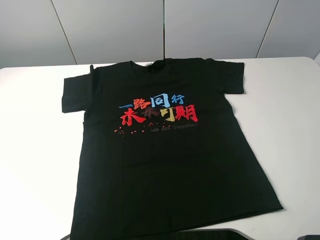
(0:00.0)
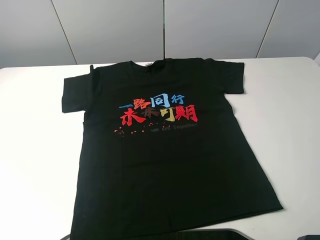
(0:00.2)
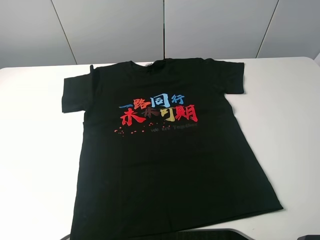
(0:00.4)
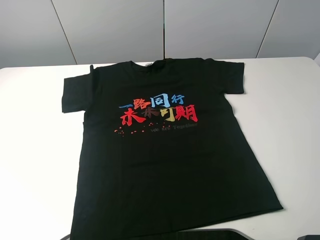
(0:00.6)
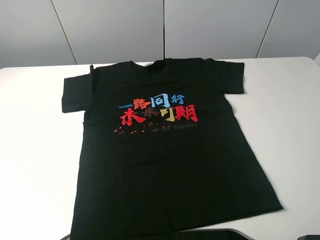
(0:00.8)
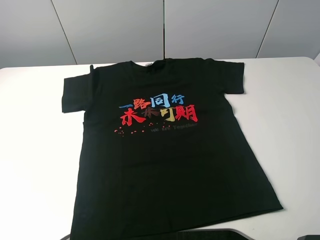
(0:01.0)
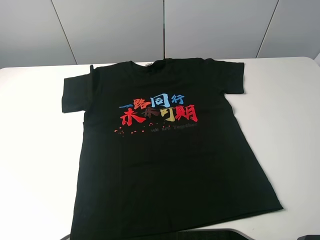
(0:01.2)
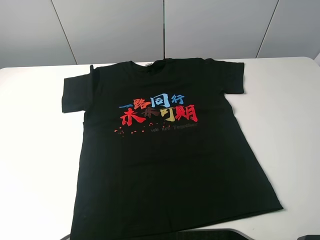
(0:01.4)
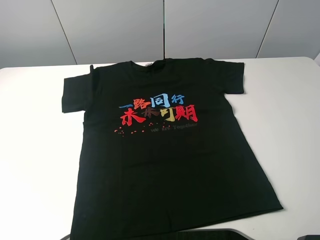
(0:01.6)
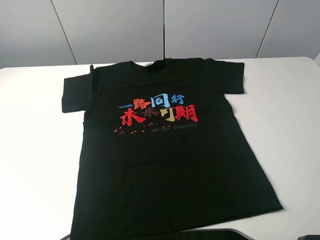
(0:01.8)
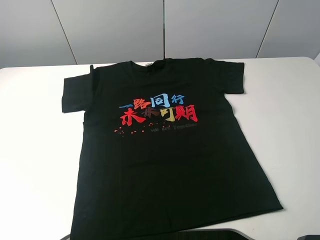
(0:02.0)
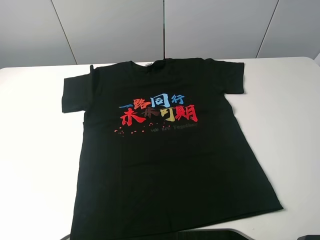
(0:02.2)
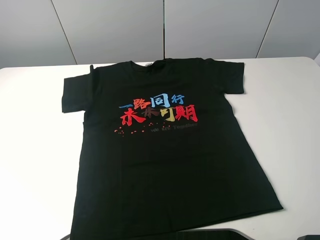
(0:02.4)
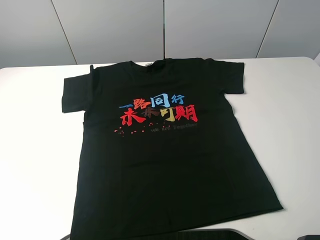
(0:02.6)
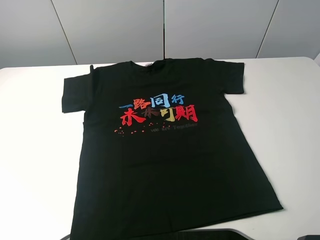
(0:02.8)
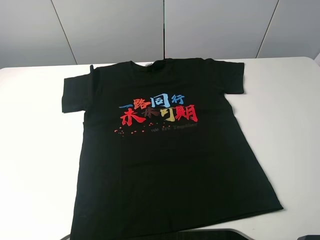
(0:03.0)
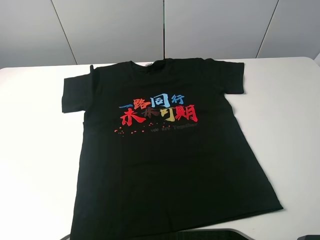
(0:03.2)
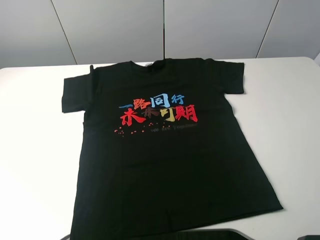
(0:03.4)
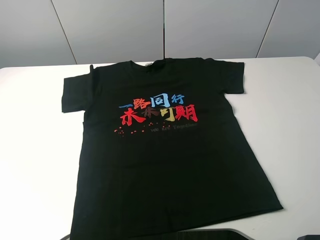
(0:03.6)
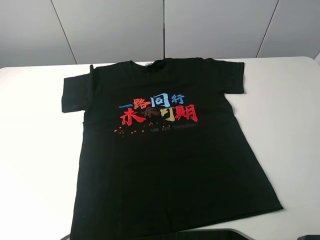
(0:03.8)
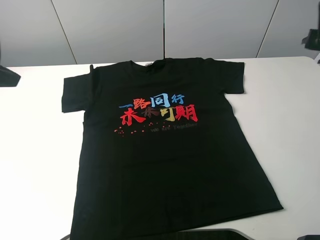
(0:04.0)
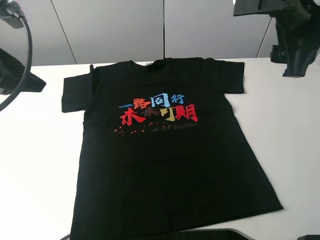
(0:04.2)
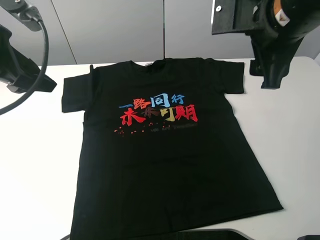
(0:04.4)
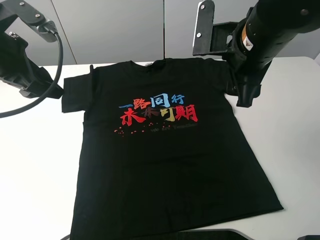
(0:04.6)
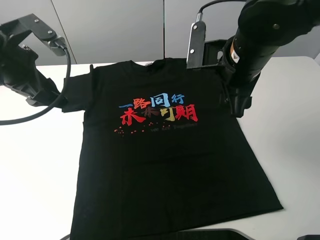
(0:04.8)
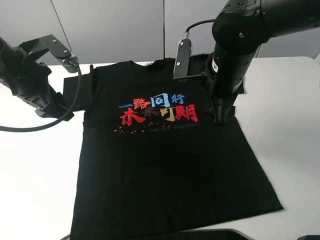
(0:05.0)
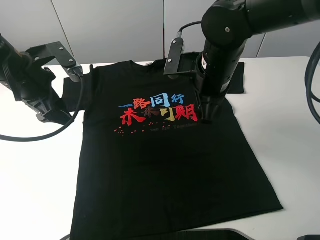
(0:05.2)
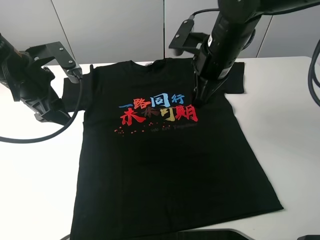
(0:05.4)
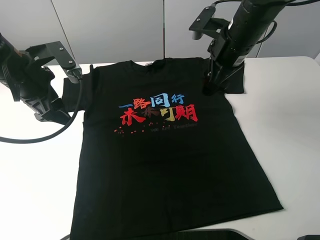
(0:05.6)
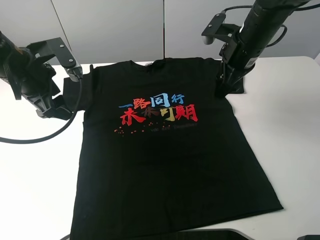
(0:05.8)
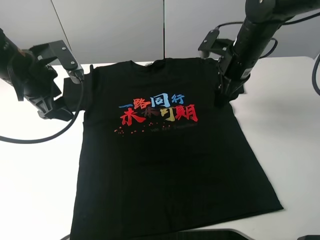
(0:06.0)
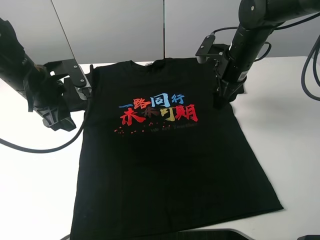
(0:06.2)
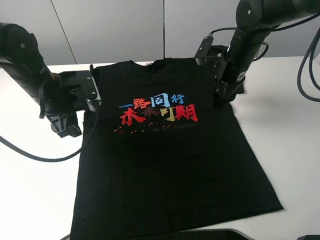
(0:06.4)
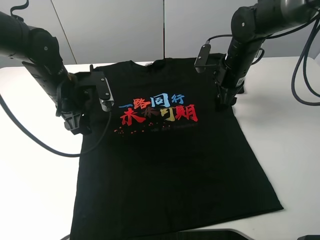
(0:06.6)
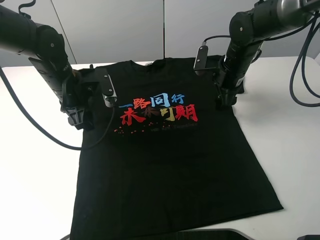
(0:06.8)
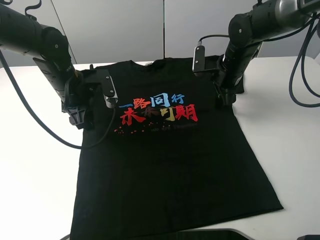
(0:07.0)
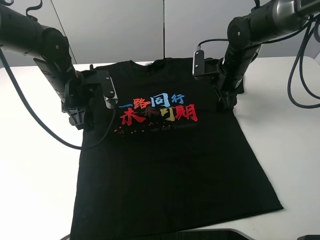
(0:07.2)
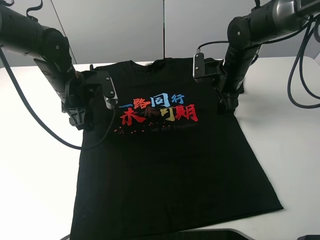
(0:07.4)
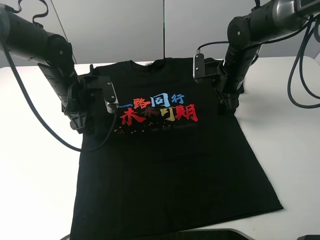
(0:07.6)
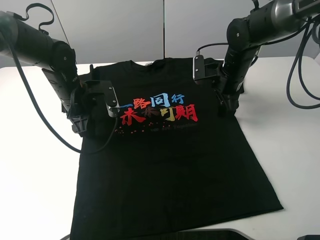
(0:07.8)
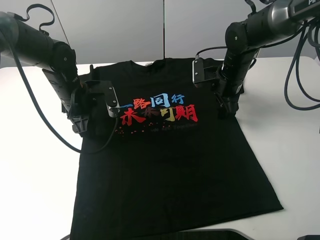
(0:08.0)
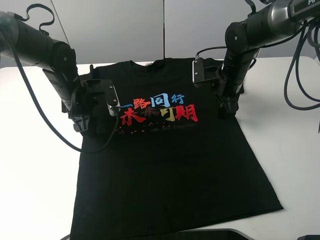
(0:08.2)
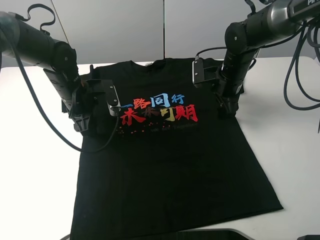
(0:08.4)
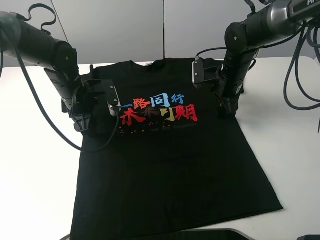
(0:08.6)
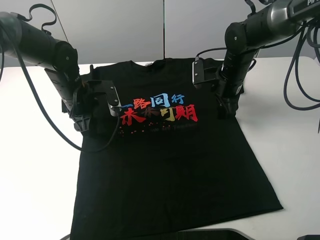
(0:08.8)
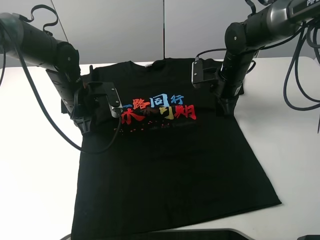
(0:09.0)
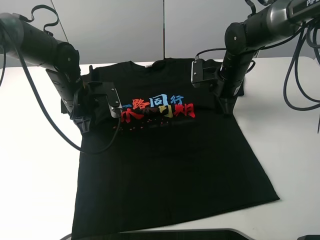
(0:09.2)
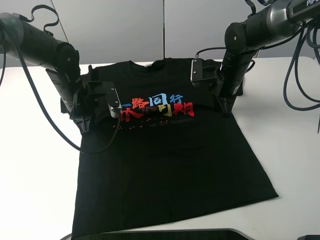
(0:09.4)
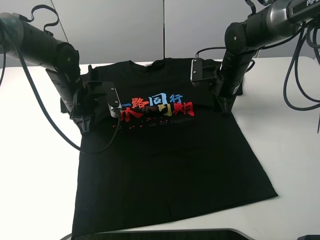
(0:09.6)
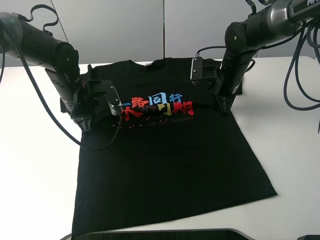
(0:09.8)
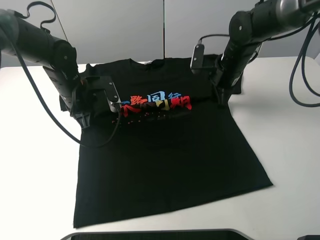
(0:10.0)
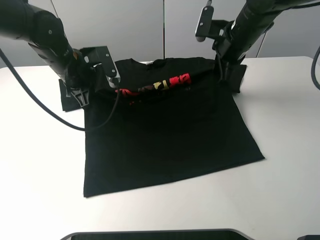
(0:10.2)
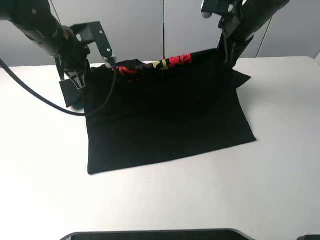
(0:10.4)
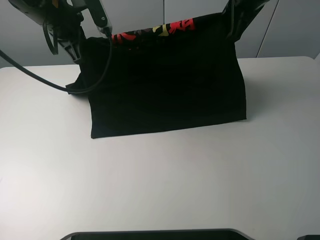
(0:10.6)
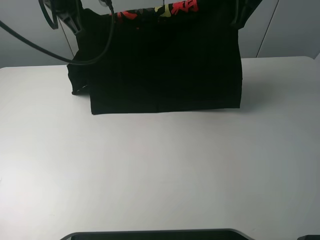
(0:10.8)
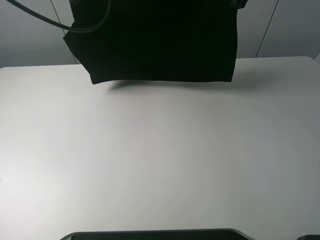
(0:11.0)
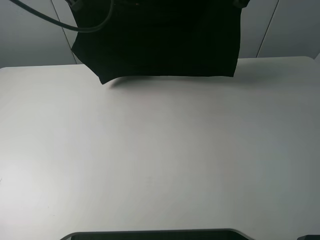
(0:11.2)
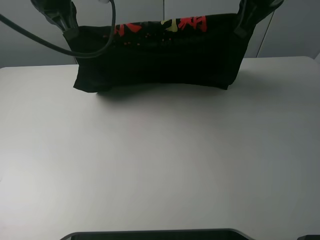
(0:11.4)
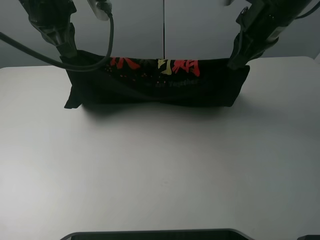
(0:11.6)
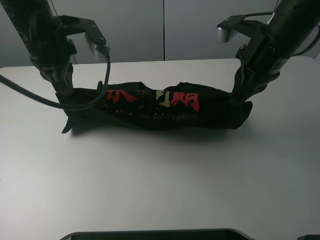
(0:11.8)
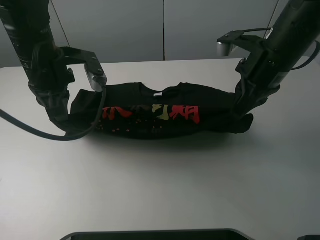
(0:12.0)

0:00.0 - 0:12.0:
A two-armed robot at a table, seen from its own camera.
Task of the whole recording: fold the clothes on the table.
Step, 0:00.0 - 0:08.8: Lift the black T-shirt with the left gripper.
0:00.0 - 0:01.6: The two grippers keep their place.
0:03.0 - 0:04.4: The left gripper is displaced forward by approximately 25 cm. Meanwhile the right gripper moves forward and to the left, roughly 25 cm.
0:04.4 - 0:06.0: The right gripper goes about 15 cm downward and forward. Meanwhile the left gripper heads downward, covering approximately 10 cm.
0:06.0 - 0:07.6: The right gripper travels downward by some 5 cm; the left gripper travels downward by some 10 cm.
0:07.6 - 0:09.0: The right gripper closes, while the left gripper closes its fingers.
0:09.0 - 0:10.4: The two grippers go approximately 15 cm upward.
0:10.4 - 0:12.0: Both grippers travel together backward, about 10 cm. The left gripper travels upward and back again, approximately 15 cm each way; the right gripper travels upward and back again, some 10 cm each way.

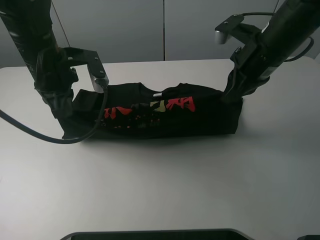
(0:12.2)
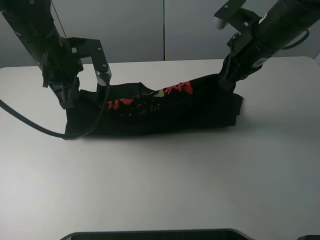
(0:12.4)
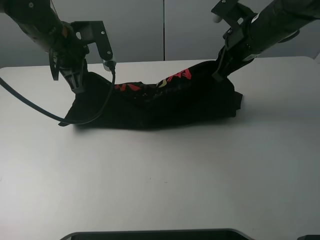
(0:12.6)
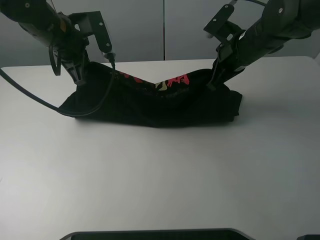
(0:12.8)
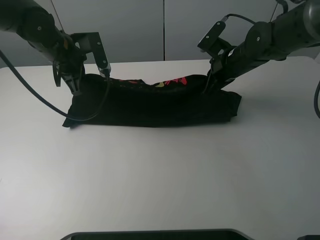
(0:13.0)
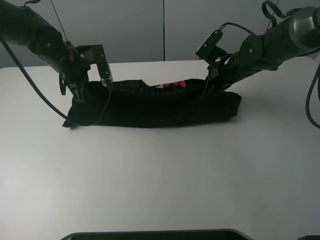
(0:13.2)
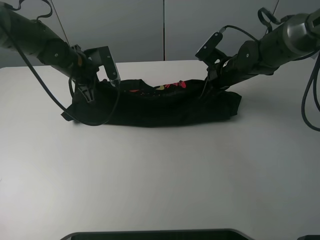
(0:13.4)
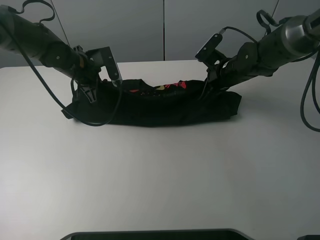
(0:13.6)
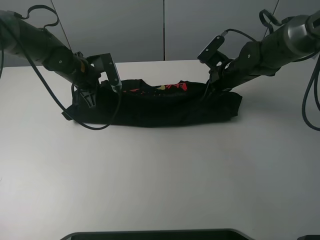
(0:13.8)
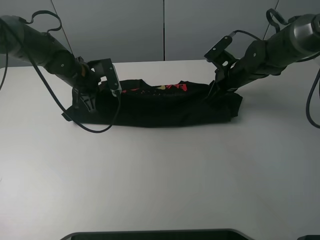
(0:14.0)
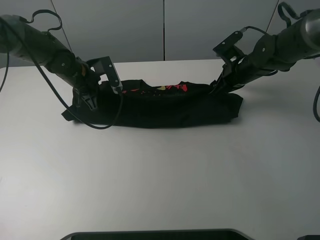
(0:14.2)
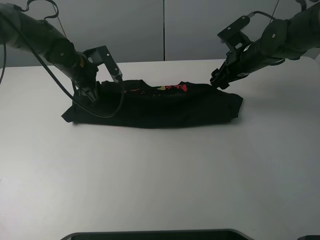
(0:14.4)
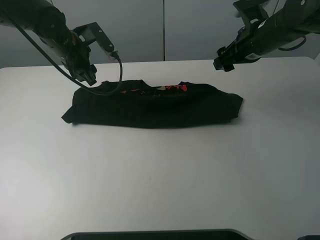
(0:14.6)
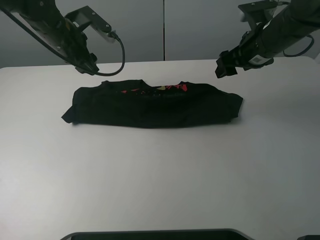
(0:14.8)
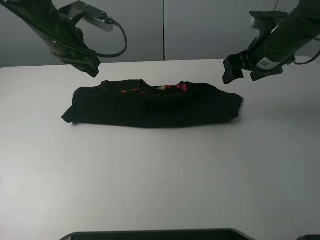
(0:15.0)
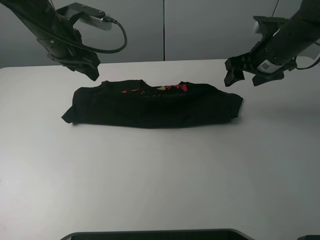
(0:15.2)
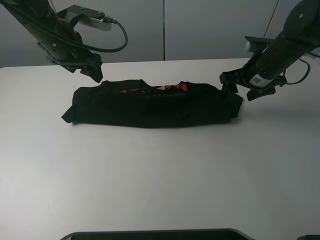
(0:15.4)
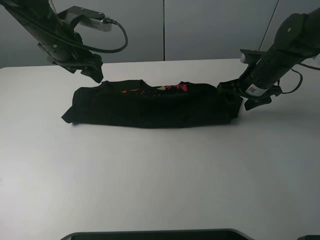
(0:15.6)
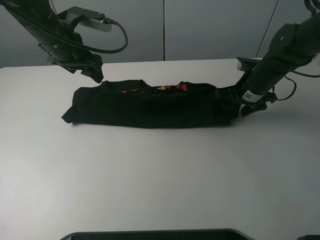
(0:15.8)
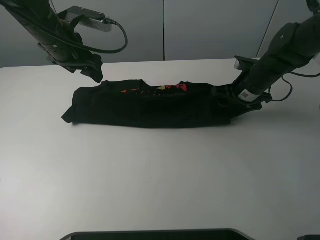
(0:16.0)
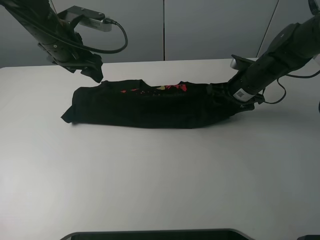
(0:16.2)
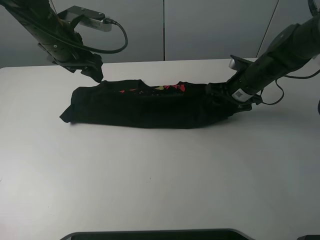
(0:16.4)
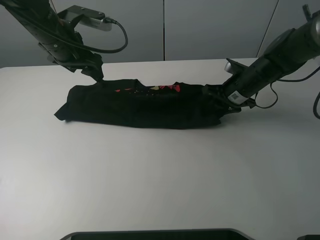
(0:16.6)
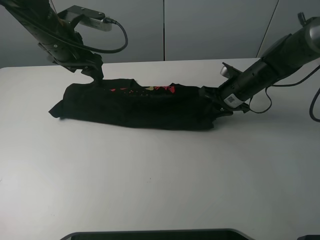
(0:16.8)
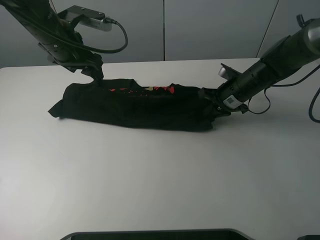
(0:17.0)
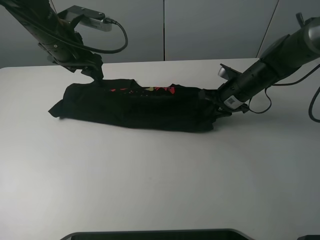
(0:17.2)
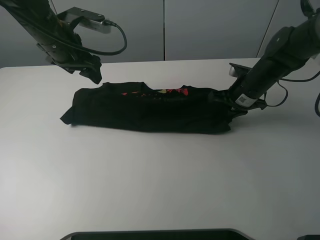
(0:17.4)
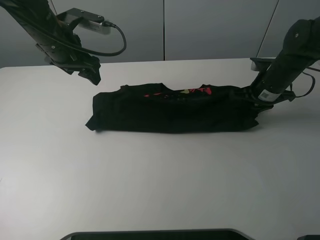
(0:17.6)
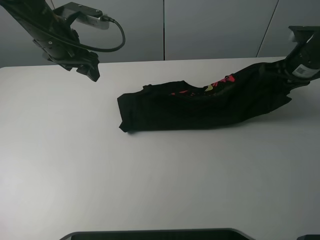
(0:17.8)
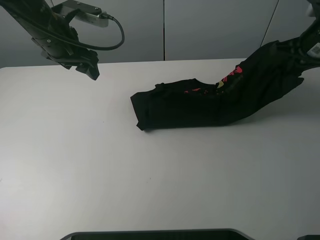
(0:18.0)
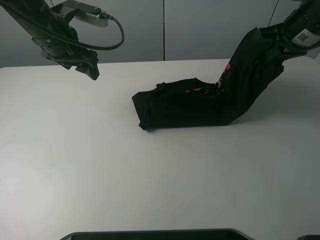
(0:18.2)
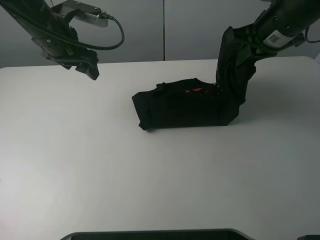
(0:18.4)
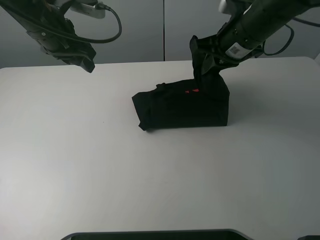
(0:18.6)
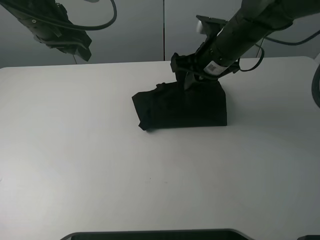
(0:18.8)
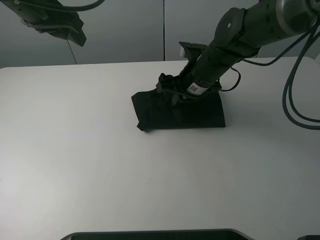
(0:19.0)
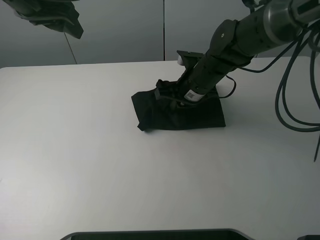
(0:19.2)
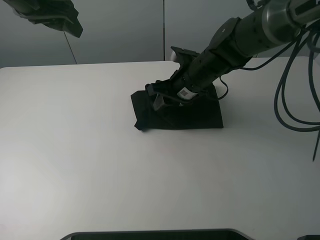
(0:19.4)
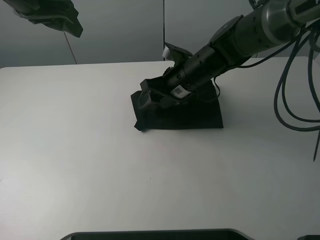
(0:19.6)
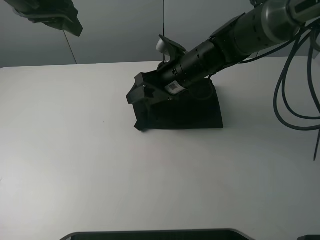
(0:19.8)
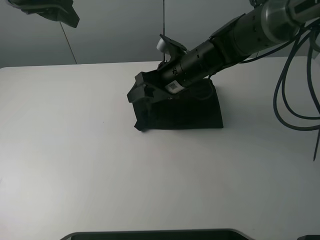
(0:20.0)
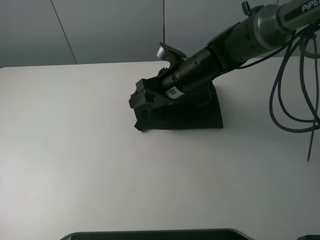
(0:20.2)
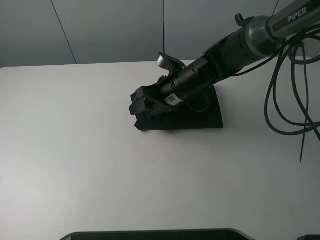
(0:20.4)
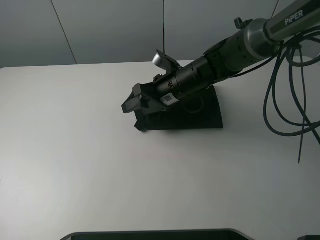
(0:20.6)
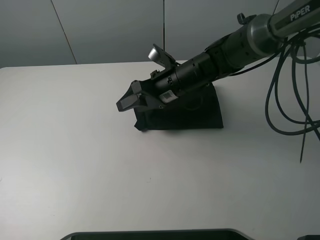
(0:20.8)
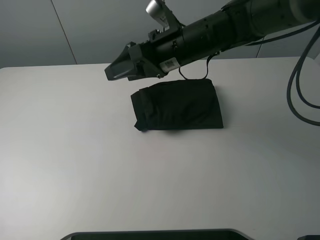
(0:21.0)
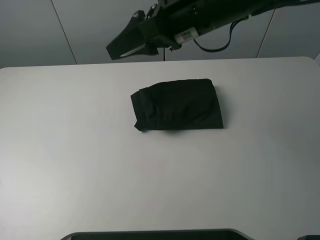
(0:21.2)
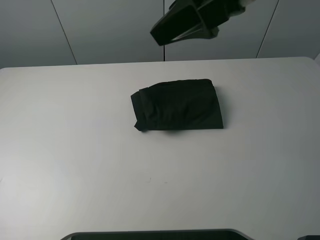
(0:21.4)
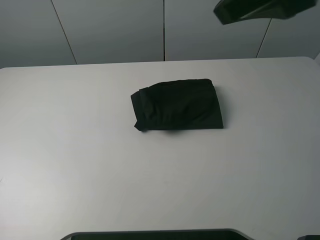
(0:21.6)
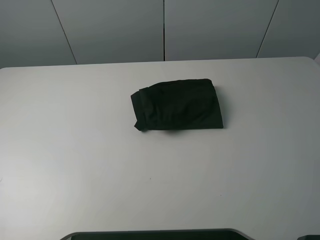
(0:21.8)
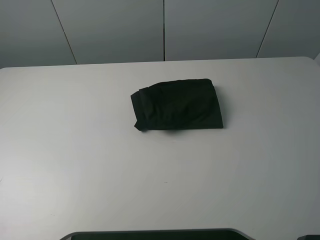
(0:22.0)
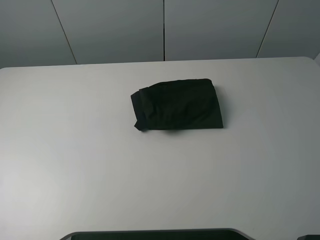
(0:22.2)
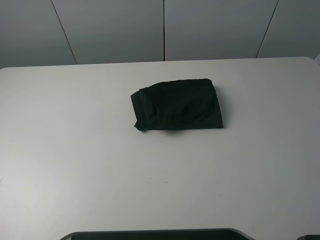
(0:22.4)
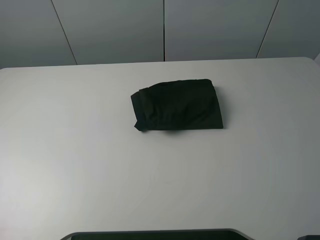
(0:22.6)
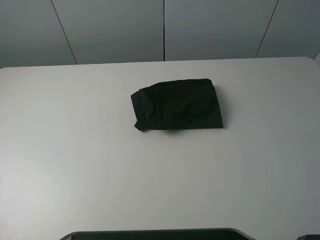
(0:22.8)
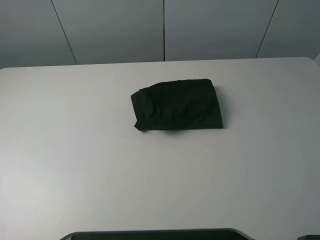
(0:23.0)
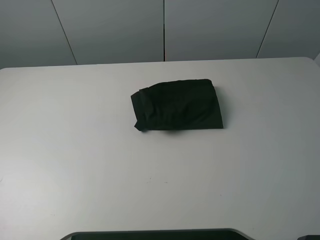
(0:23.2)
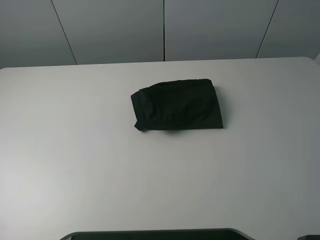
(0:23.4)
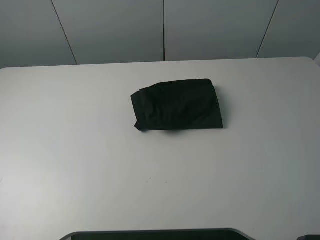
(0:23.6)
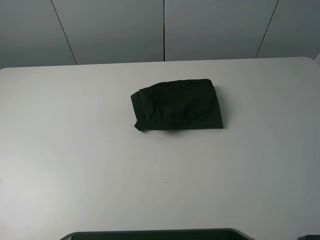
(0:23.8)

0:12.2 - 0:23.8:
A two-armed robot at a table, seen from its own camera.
Task of the whole recording: fold the clothes on the table.
Step, 0:12.2 - 0:14.4: Fold the black T-shirt downward with the left gripper.
Step, 0:14.6 - 0:16.8: Grasp the black T-shirt with the right gripper.
Step, 0:17.0 - 0:19.8: Fold the black T-shirt from right to left with right gripper.
0:12.2 - 0:13.6: The left gripper moves forward and downward, some 15 cm. The right gripper goes about 15 cm downward and forward.
0:13.6 - 0:15.0: The left gripper heads upward, covering roughly 10 cm, and opens its fingers. The right gripper heads upward and to the right, covering about 10 cm, and opens its fingers.
0:15.0 - 0:16.6: The right gripper goes roughly 10 cm downward, and closes its fingers.
0:16.6 - 0:18.0: The right gripper moves upward and to the right, about 20 cm.
0:18.0 - 0:19.4: The right gripper heads to the left and downward, covering roughly 25 cm, and opens up. The left gripper travels upward by about 10 cm.
0:19.4 - 0:21.0: The left gripper moves backward and upward, approximately 25 cm, while the right gripper goes about 10 cm upward.
0:21.0 - 0:22.4: The left gripper travels backward and to the left by approximately 20 cm, while the right gripper travels backward, to the right and upward by approximately 50 cm.
